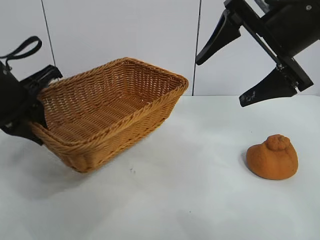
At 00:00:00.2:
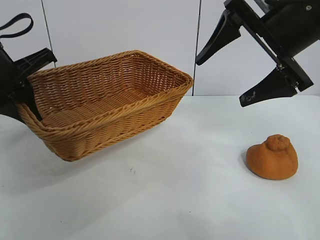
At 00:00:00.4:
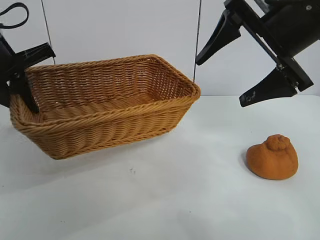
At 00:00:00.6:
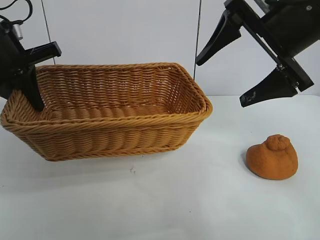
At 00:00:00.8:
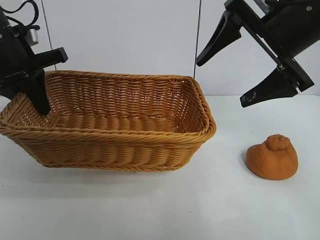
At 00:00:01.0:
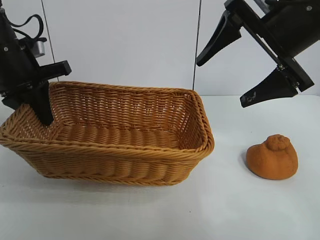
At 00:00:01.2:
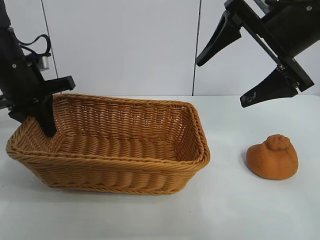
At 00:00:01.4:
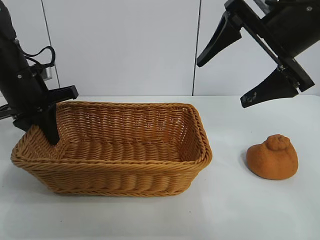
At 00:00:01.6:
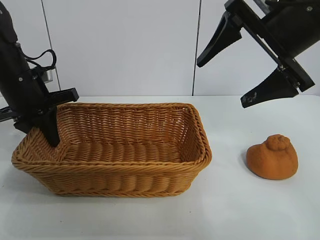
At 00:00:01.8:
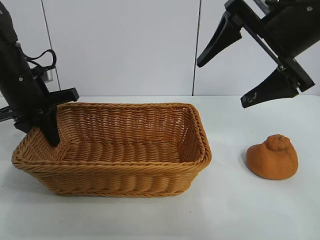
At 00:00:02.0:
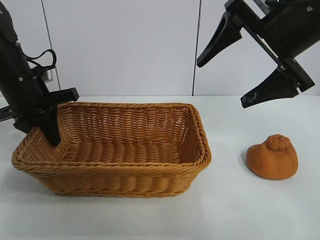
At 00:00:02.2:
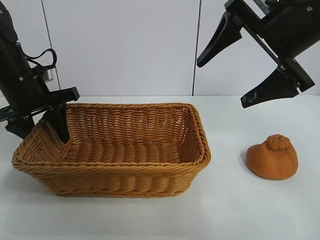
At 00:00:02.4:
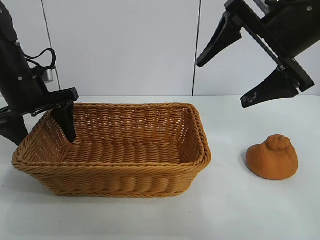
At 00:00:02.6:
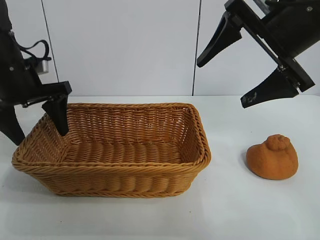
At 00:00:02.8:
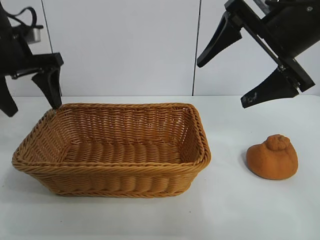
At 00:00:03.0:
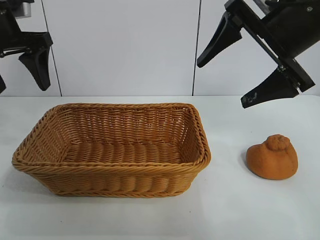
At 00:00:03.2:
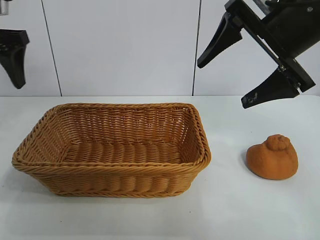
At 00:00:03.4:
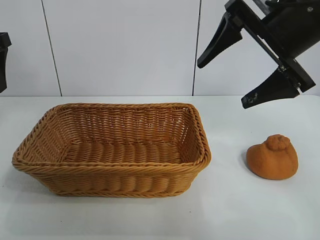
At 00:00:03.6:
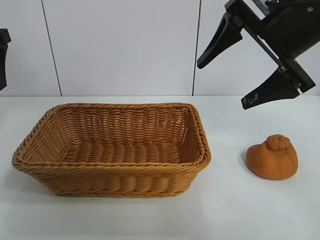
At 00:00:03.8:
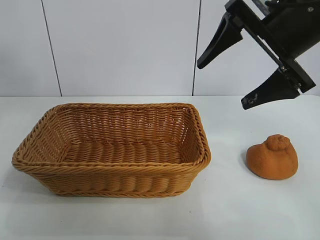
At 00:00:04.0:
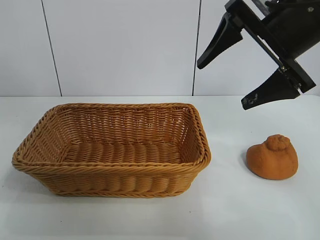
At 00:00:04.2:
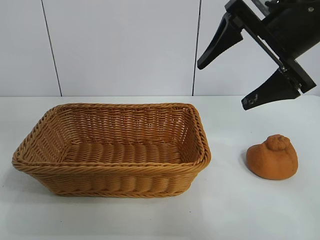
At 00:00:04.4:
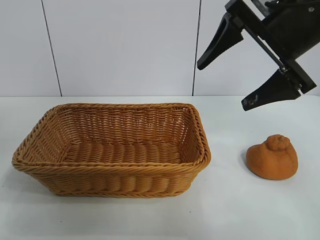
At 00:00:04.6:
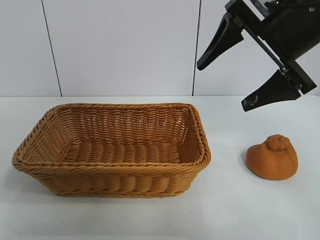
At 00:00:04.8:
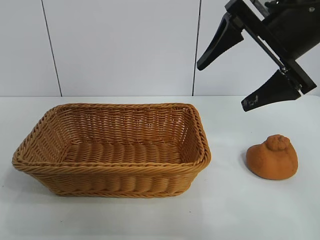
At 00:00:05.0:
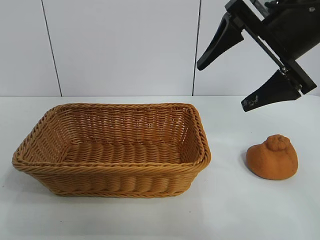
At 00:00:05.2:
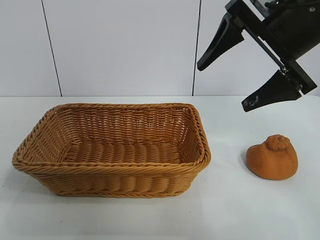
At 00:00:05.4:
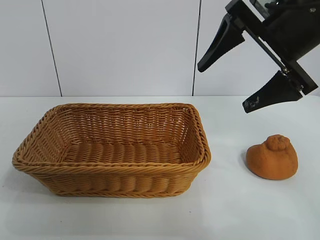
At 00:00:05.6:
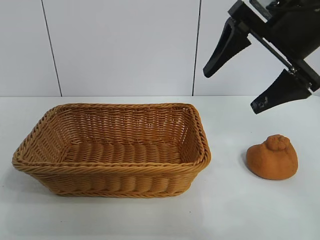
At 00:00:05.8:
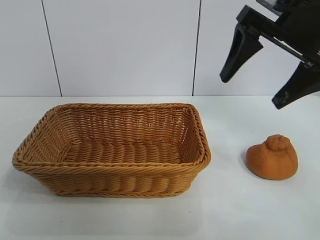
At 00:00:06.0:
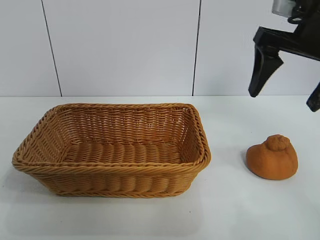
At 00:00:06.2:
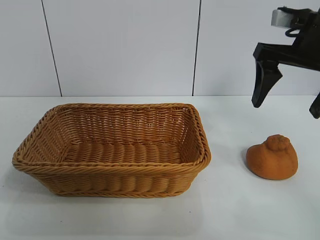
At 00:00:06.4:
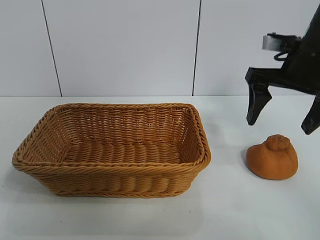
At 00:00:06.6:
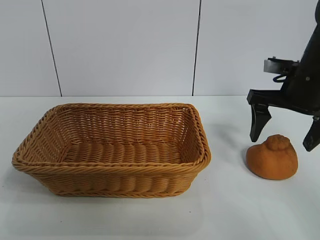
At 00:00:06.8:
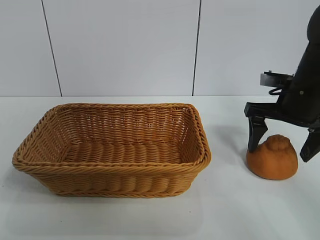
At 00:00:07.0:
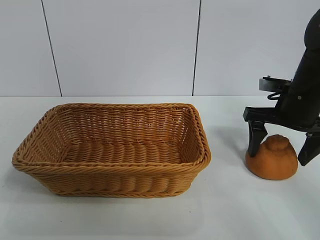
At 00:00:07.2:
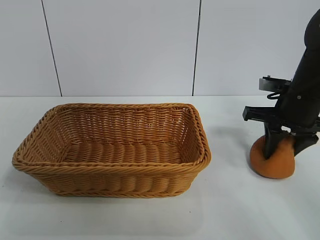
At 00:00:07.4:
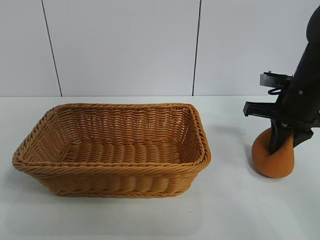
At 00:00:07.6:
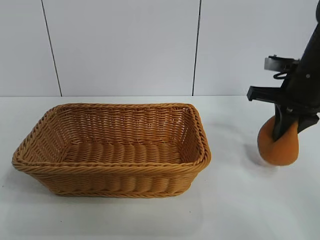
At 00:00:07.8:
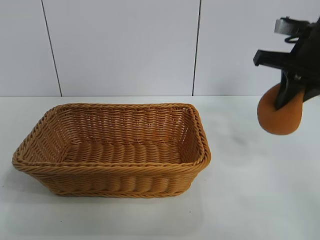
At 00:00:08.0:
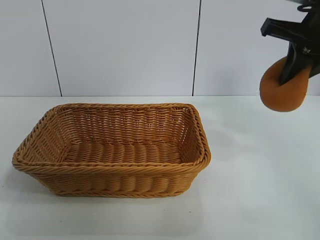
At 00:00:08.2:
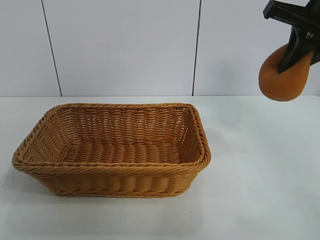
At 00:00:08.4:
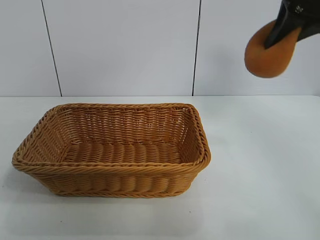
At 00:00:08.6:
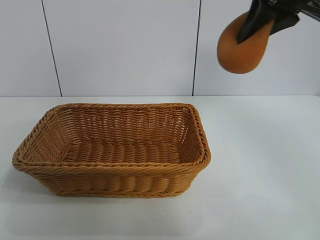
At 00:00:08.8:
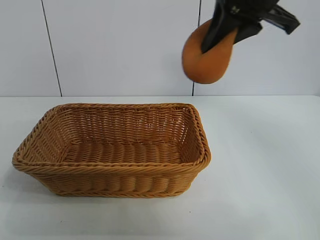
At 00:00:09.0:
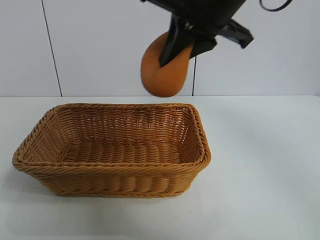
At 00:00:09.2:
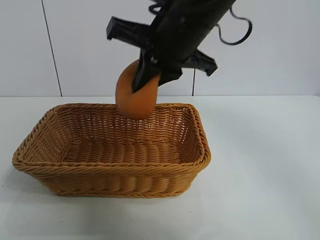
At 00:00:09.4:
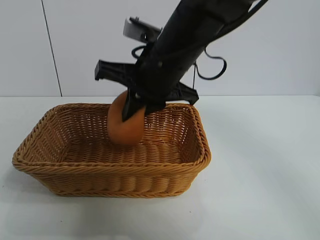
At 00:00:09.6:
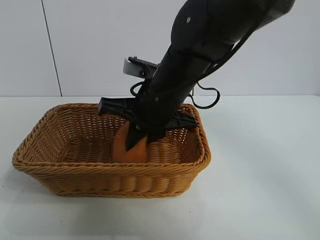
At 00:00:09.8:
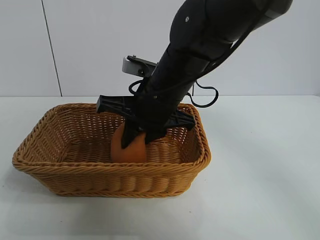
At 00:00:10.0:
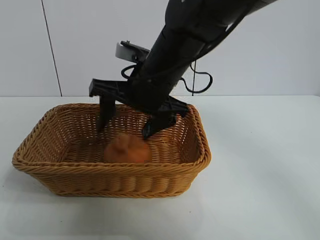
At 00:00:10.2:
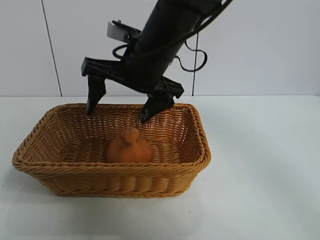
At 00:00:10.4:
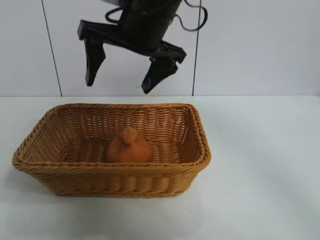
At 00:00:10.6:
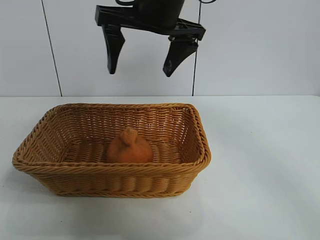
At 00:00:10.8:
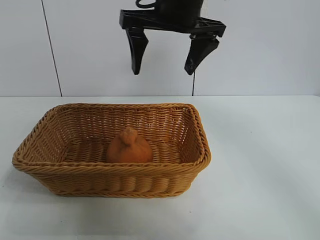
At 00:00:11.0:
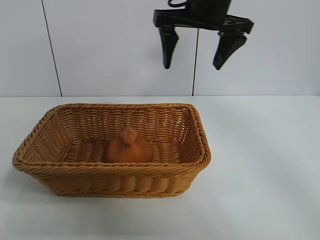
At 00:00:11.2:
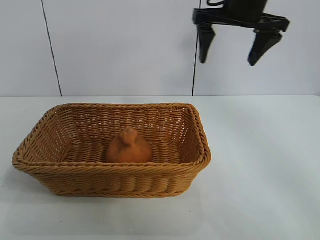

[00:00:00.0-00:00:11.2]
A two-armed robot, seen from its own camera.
Task of the whole recording: pick up the orange and put it into the basket.
Step, 00:00:00.0 to 00:00:02.4: Place the basket in the center of view with left gripper.
Step, 00:00:02.6 to 00:00:07.4: Grasp the orange with right gripper.
Step, 00:00:07.8 to 00:00:10.0: Place the orange in the basket with right gripper.

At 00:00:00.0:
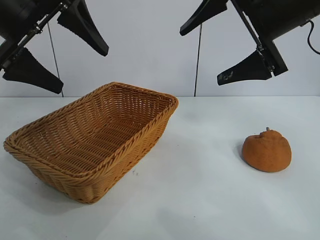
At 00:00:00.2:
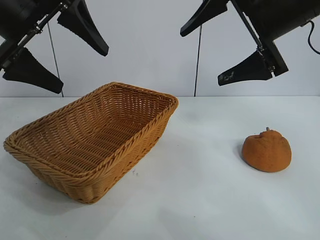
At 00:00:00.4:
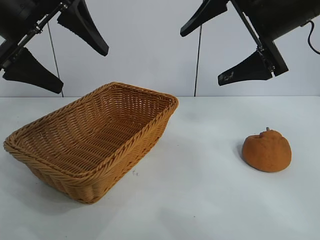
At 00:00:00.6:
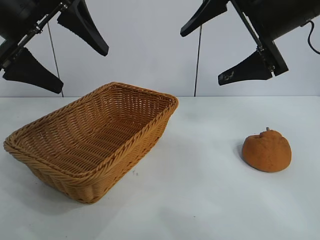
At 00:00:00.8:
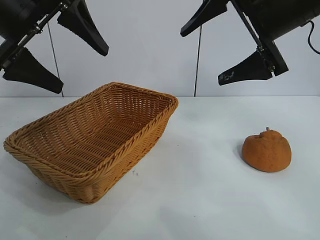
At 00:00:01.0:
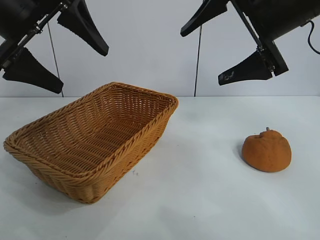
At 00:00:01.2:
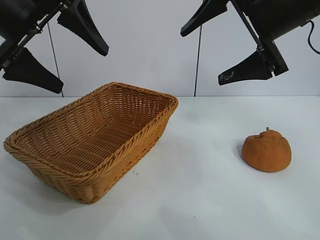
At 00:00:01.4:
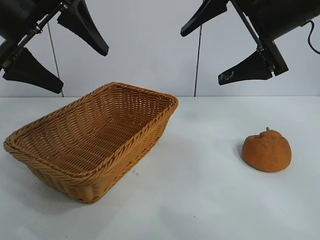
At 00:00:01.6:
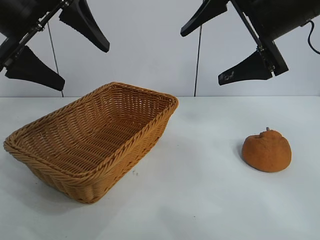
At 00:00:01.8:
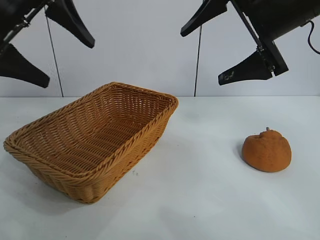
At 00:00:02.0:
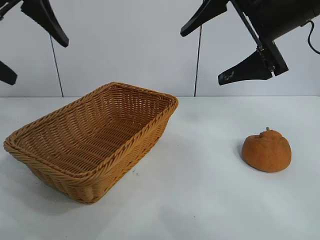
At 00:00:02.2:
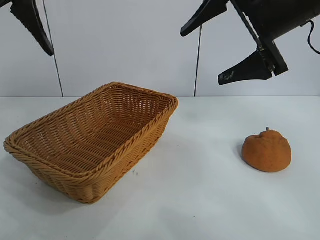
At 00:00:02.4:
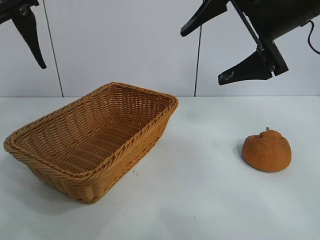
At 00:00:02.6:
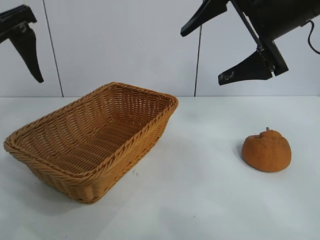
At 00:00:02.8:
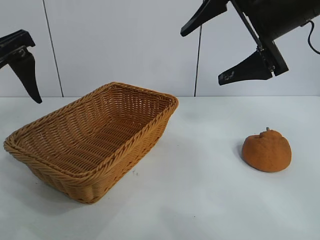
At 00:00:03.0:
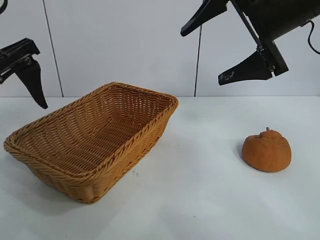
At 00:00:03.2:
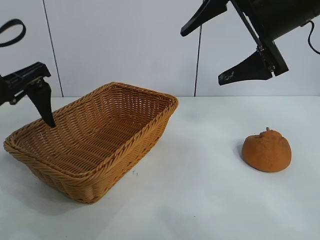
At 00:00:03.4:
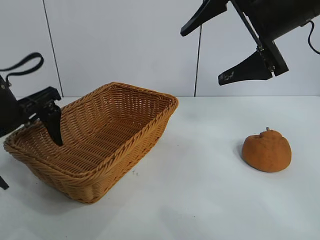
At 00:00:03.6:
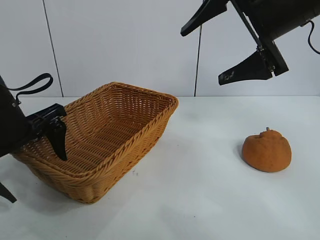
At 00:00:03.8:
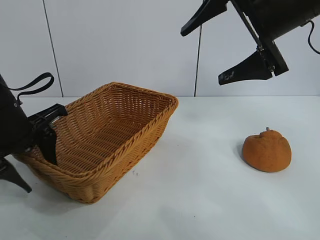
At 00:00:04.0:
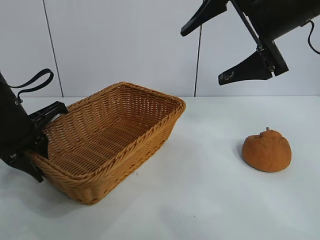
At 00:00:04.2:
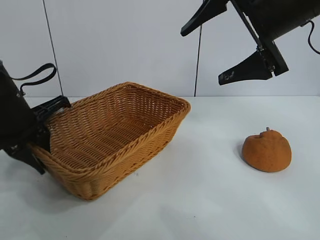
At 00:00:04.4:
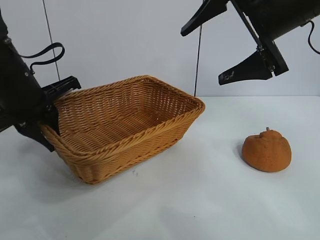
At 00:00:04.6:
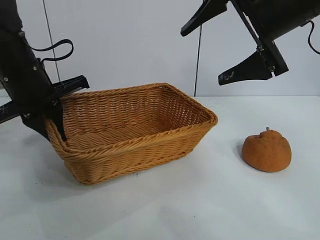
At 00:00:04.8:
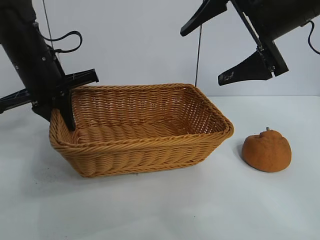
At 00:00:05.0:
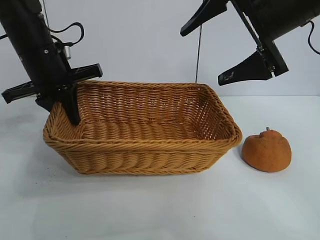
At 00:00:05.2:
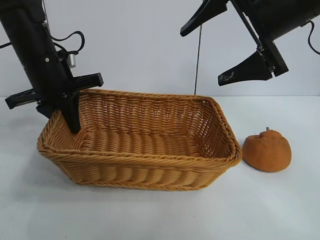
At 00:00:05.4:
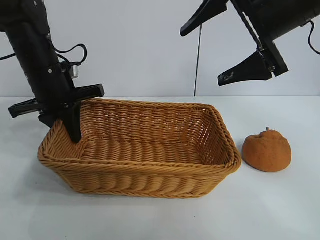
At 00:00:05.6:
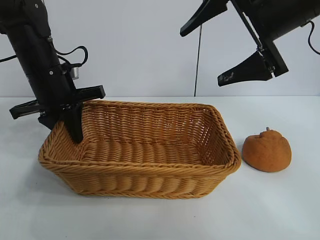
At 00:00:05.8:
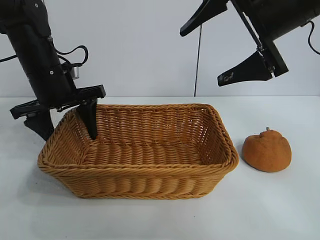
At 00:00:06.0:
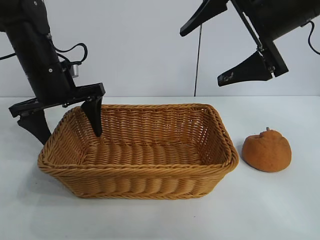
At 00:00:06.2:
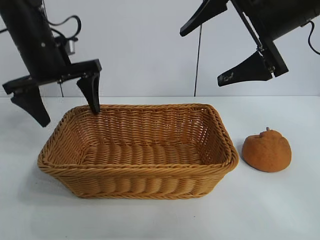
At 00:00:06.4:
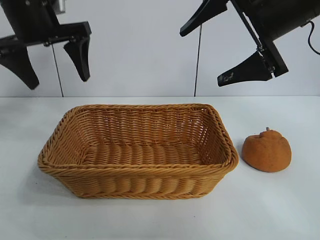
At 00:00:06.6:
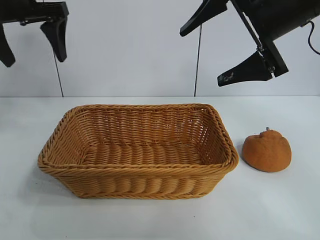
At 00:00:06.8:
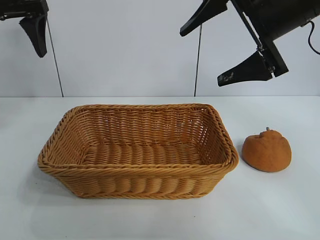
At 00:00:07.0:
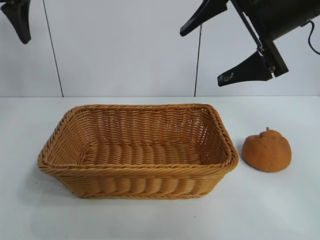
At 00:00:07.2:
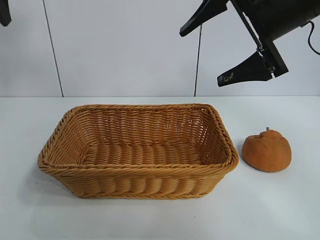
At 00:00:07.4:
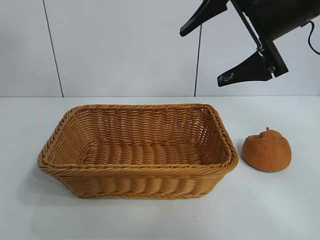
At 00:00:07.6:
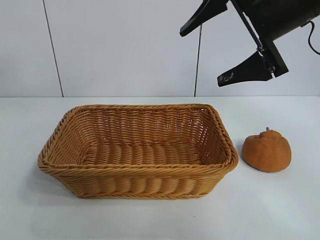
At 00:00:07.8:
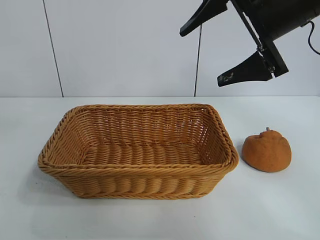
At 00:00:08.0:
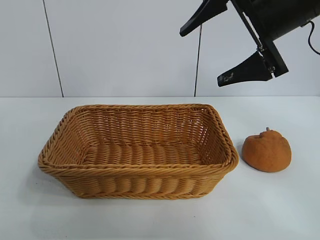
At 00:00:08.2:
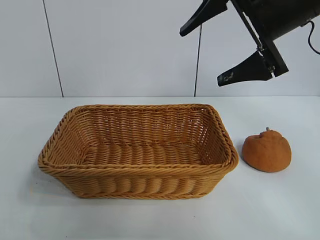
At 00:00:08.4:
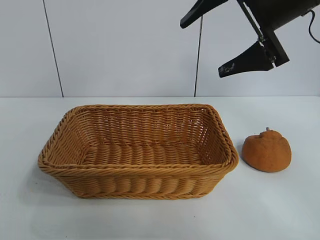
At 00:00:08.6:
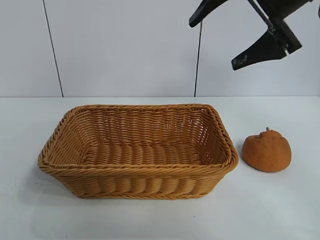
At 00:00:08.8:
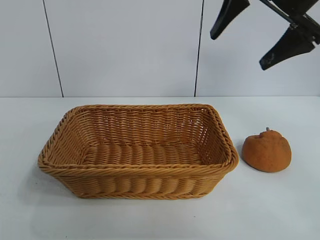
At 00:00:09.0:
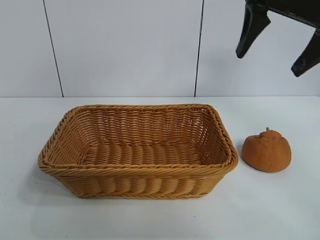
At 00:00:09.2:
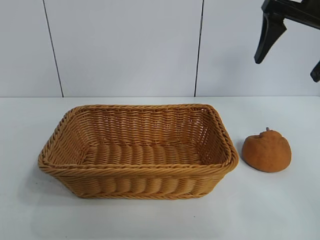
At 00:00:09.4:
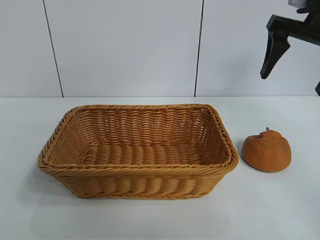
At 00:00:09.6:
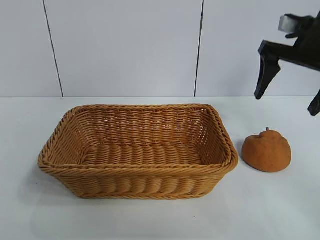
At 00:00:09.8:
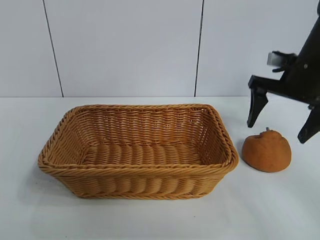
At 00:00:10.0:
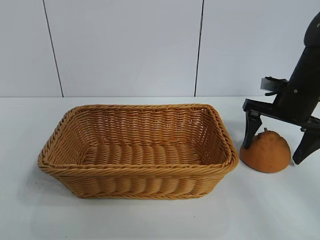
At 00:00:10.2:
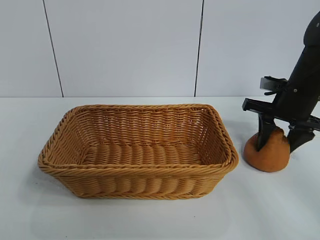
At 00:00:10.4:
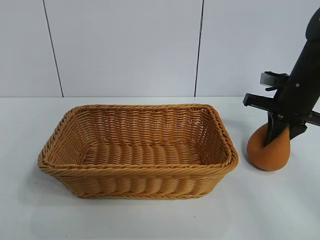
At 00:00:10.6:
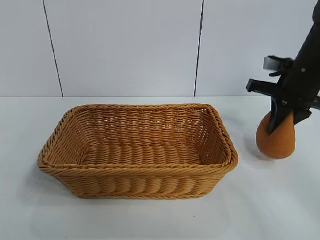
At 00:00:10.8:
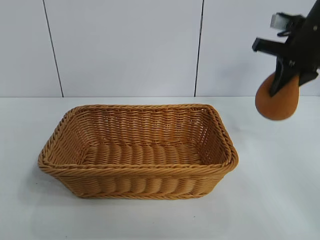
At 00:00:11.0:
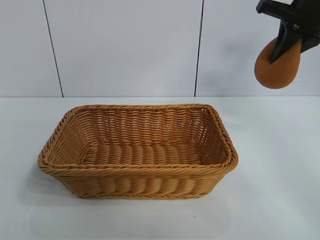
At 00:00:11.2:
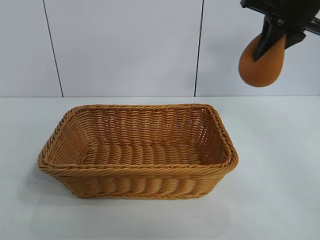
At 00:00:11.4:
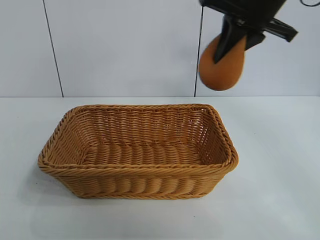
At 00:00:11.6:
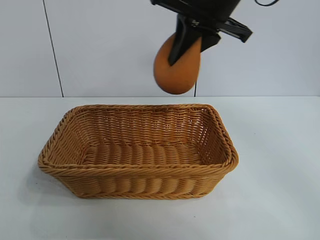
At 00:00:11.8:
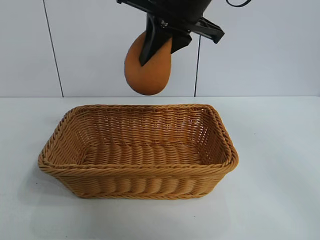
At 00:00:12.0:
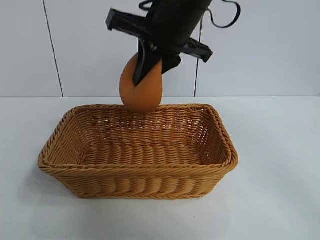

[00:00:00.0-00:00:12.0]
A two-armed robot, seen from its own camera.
Task of the whole recording: pick up the orange and put it into the basket.
Step, 00:00:00.0 to 00:00:04.0: Grasp the basket with left gripper.
Step, 00:00:04.2 to 00:00:05.8: Place the basket in the center of view with left gripper.
Step, 00:00:06.0 to 00:00:10.0: Grasp the orange with right gripper.
